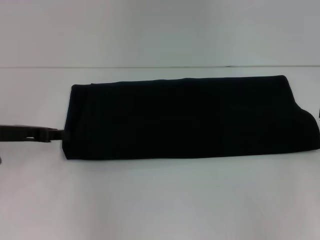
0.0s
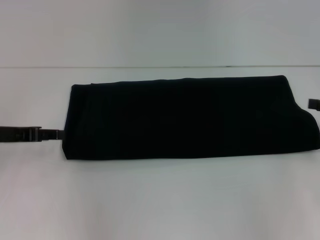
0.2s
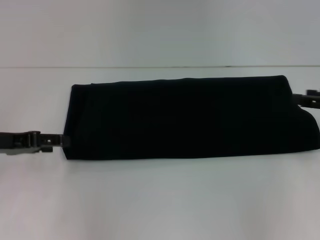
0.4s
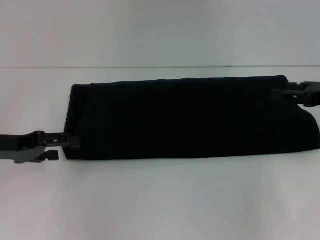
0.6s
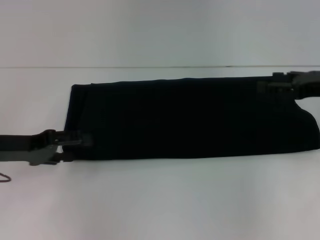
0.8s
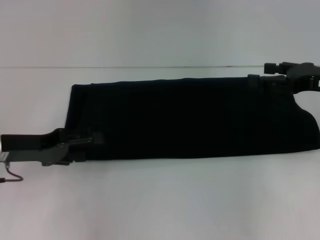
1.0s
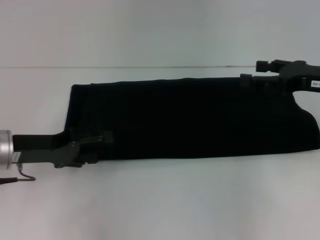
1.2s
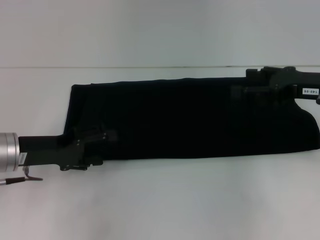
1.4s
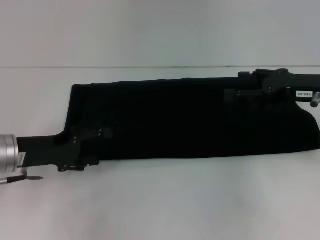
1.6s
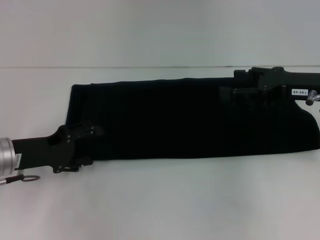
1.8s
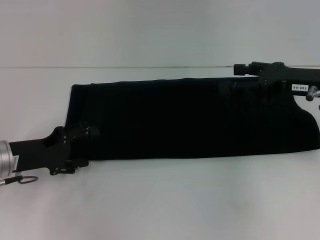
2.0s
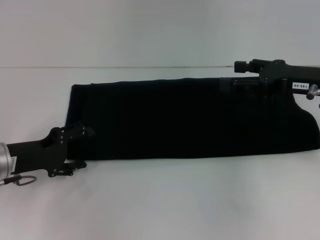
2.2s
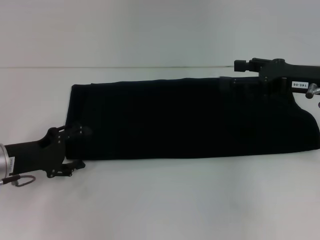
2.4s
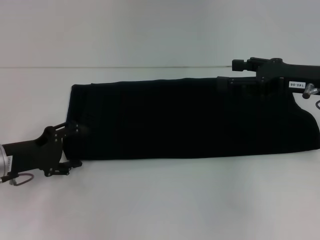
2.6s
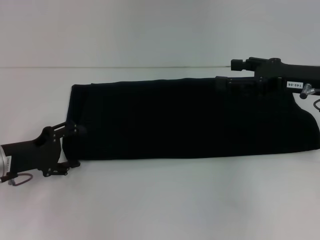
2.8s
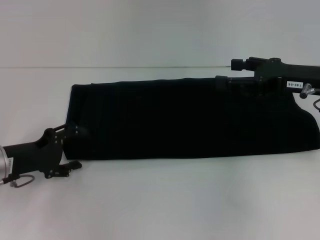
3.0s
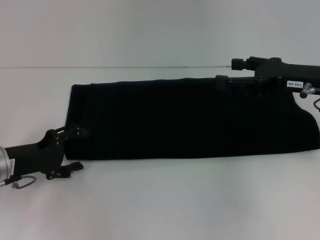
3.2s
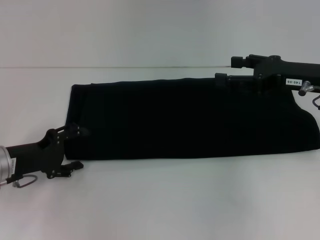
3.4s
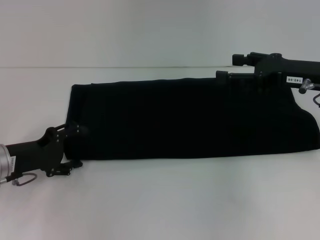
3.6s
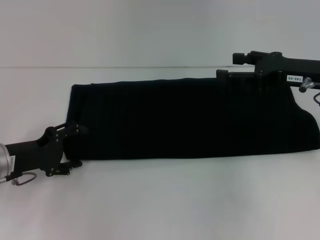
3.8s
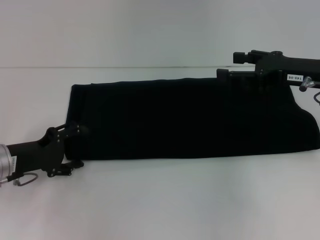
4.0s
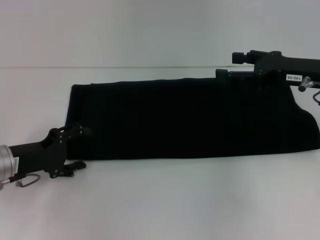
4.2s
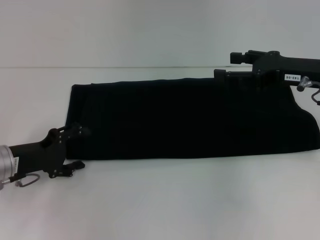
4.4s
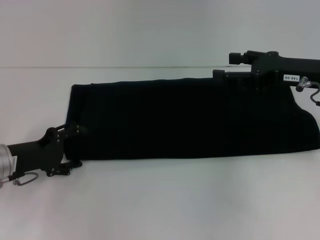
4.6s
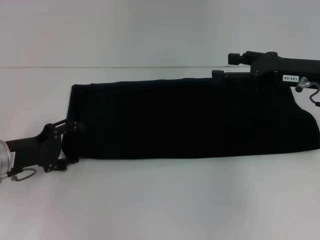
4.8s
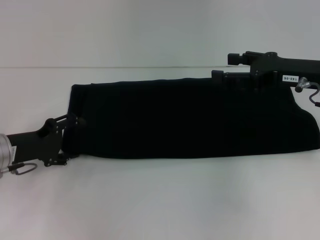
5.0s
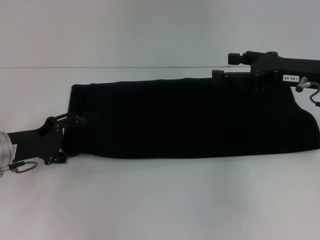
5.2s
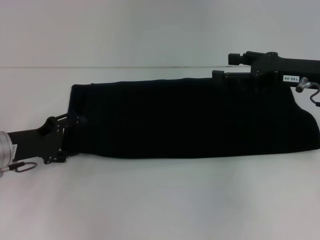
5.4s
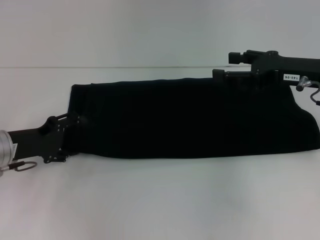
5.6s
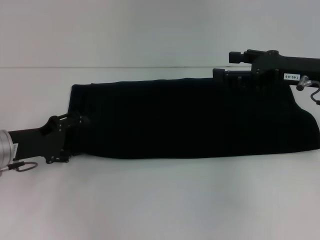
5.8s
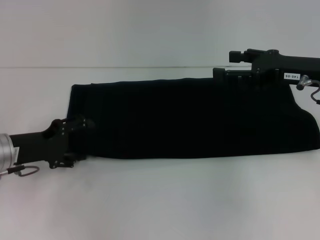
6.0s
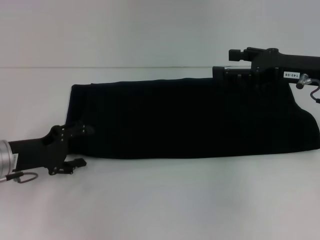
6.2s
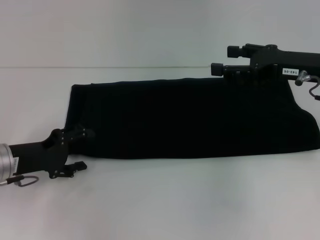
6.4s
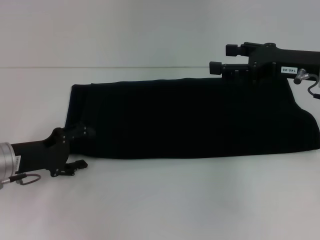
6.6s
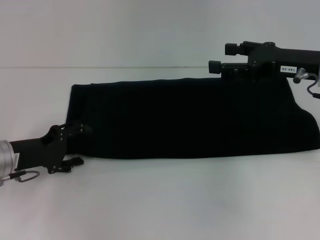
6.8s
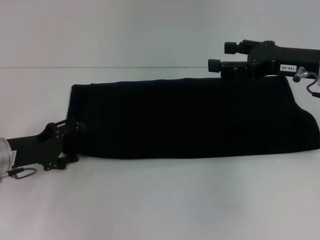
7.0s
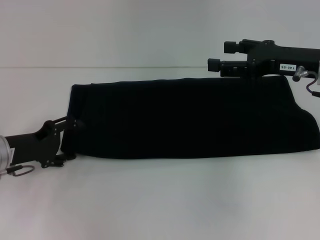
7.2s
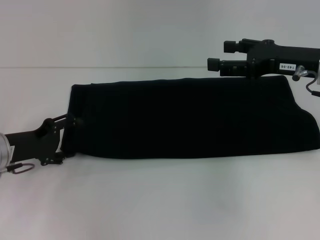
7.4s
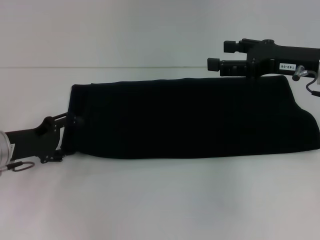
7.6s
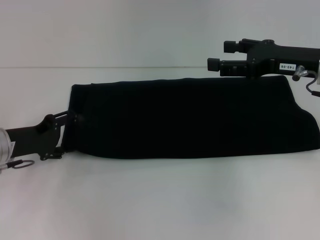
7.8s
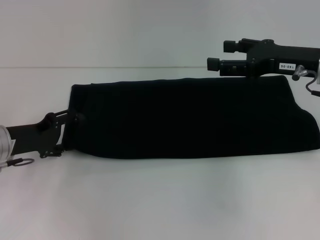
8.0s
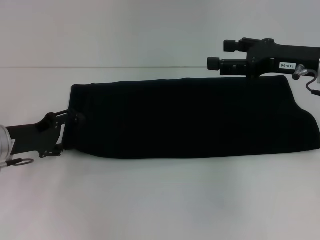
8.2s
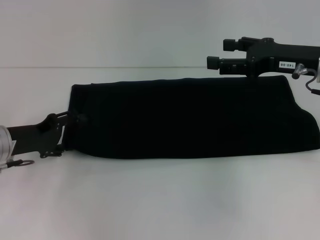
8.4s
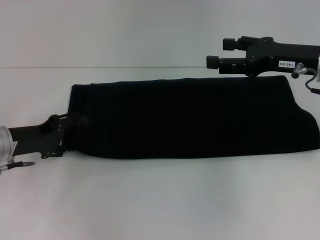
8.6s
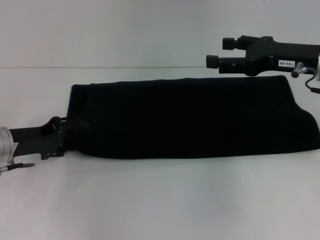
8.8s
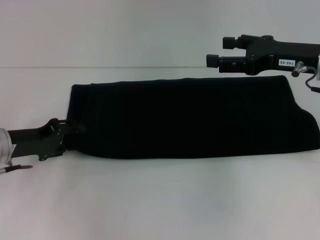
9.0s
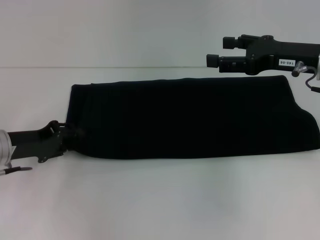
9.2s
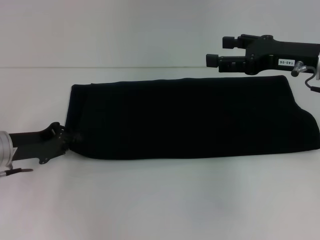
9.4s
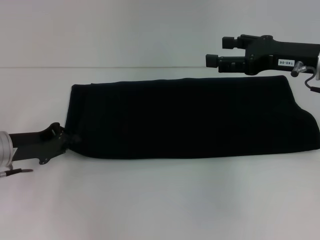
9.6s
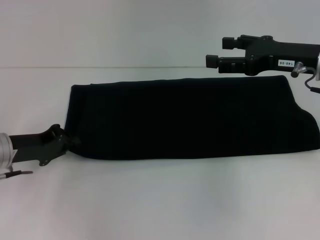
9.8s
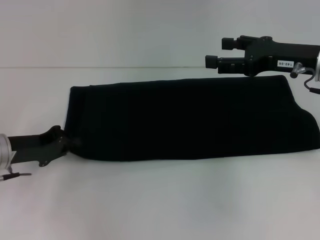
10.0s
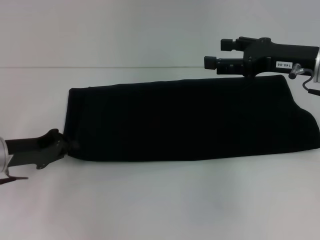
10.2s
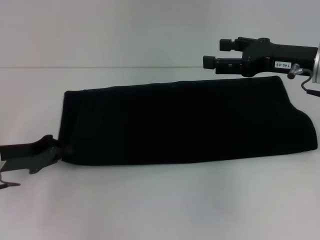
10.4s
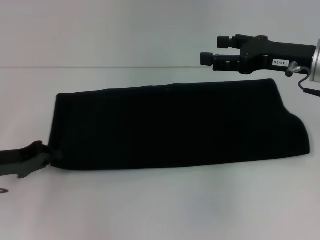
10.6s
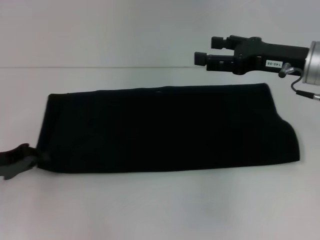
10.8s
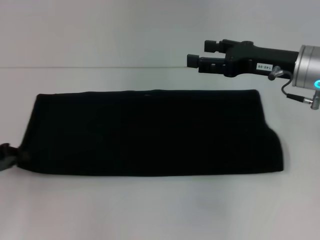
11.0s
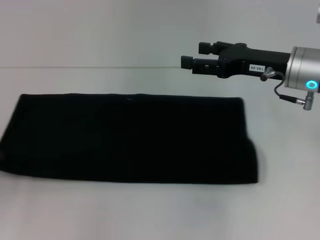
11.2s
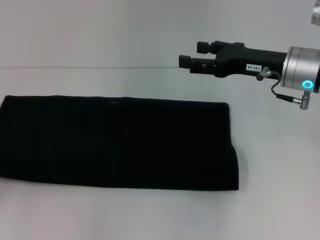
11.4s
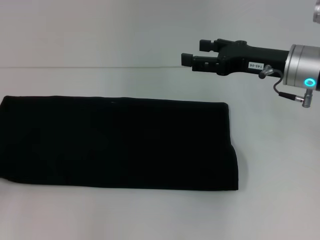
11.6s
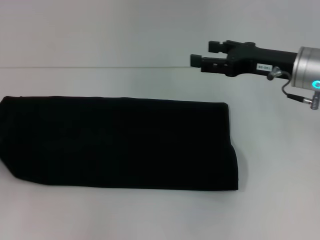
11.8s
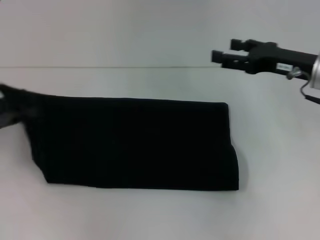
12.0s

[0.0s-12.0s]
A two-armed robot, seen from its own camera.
0.0s to 1.6s: The left gripper opens up. Meanwhile the right gripper moves to the left, some 10 cm, and opens up.
3.0s to 4.4s: Neither gripper changes place.
4.4s to 7.6s: The grippers move only a little.
7.6s to 9.0s: There are only small adjustments of the grippers.
9.0s to 10.4s: The left gripper closes.
10.4s to 12.0s: The left gripper goes some 10 cm upward.

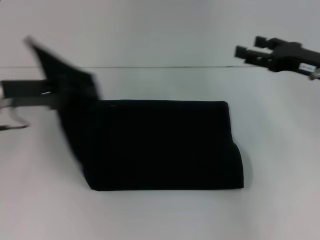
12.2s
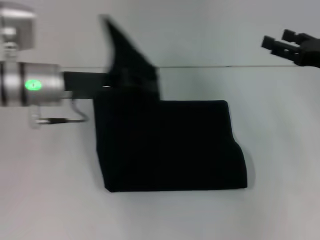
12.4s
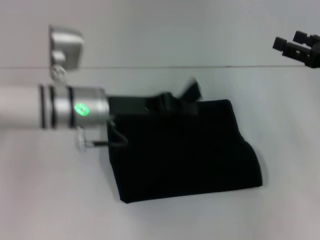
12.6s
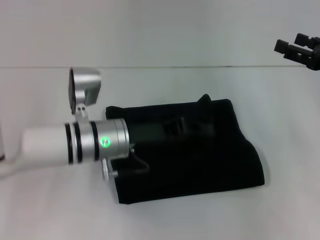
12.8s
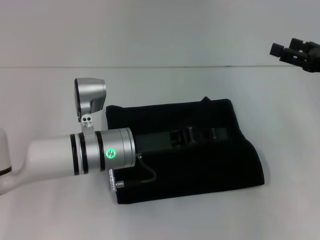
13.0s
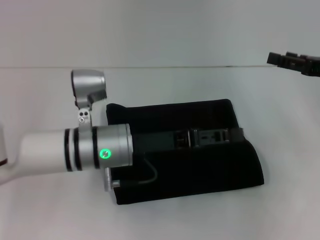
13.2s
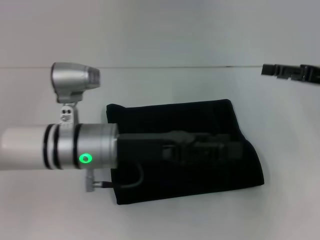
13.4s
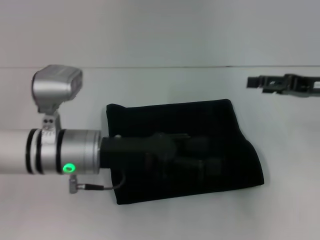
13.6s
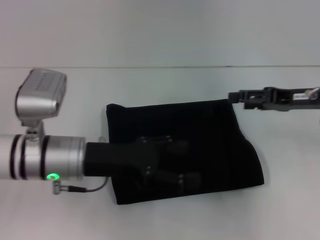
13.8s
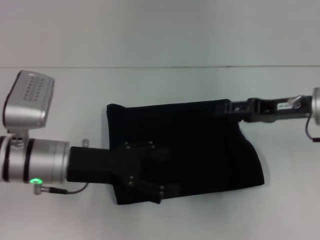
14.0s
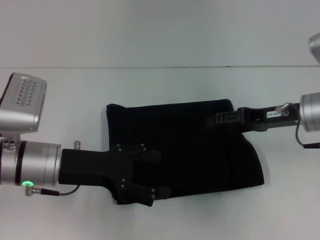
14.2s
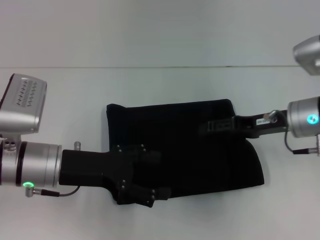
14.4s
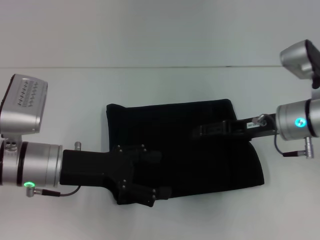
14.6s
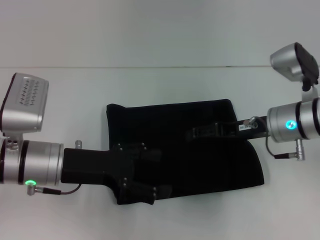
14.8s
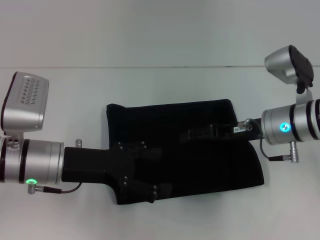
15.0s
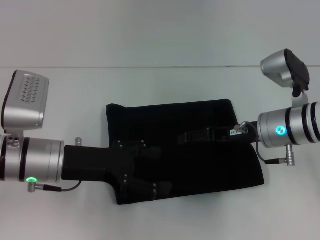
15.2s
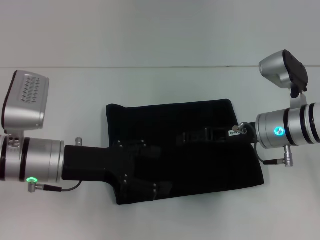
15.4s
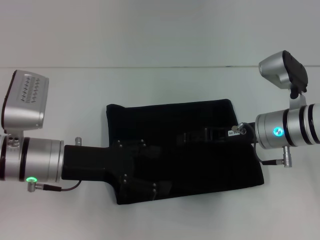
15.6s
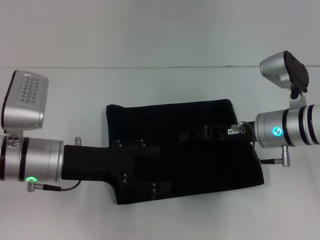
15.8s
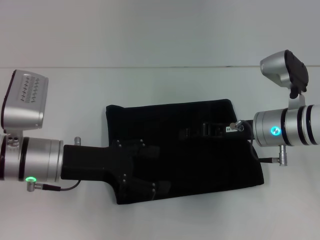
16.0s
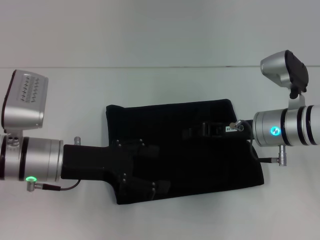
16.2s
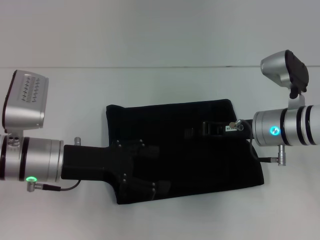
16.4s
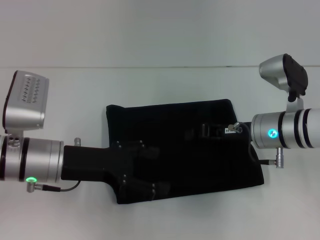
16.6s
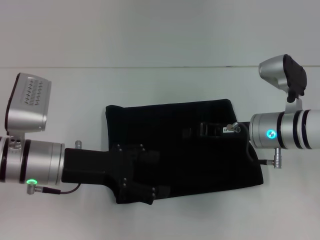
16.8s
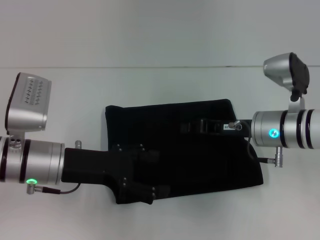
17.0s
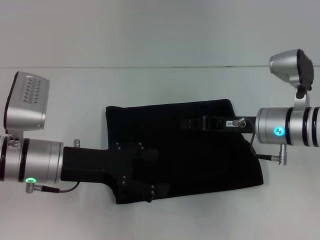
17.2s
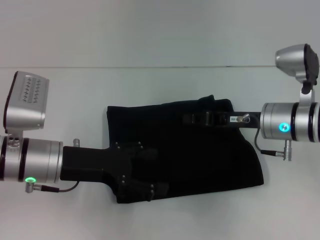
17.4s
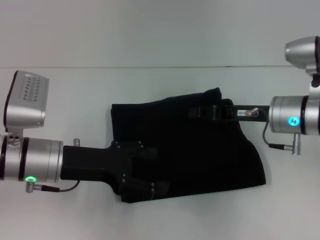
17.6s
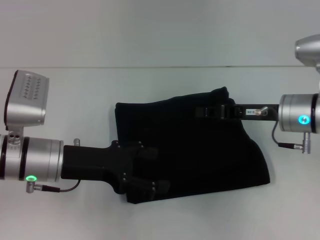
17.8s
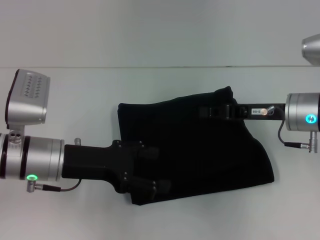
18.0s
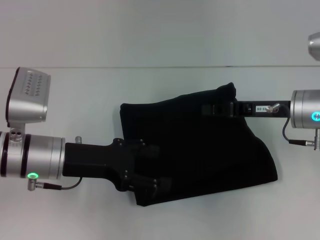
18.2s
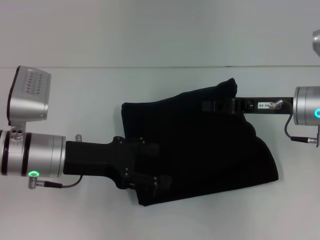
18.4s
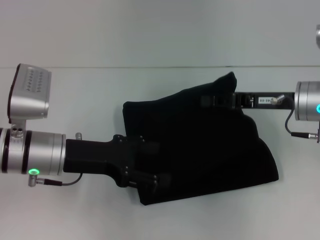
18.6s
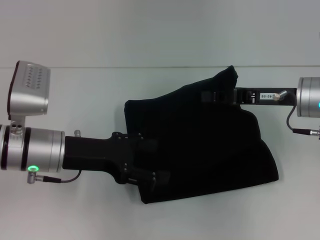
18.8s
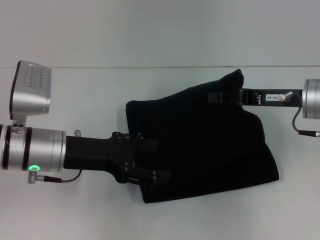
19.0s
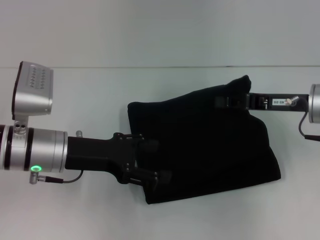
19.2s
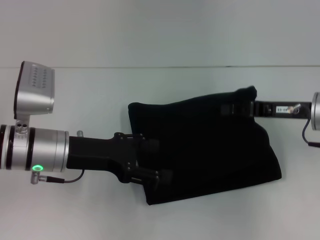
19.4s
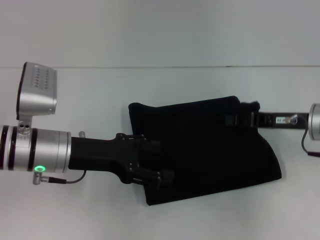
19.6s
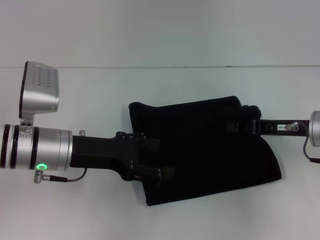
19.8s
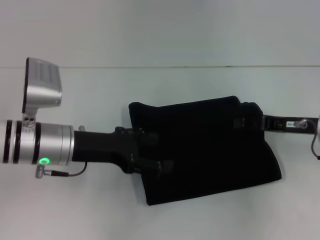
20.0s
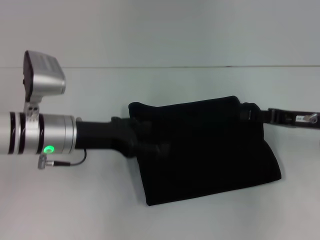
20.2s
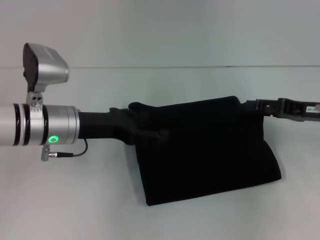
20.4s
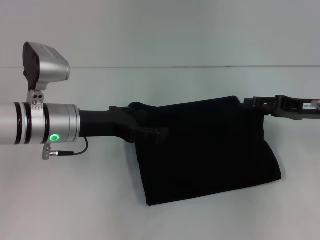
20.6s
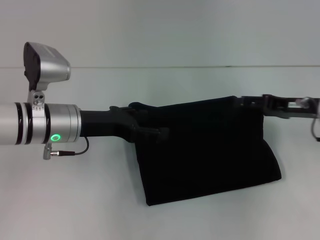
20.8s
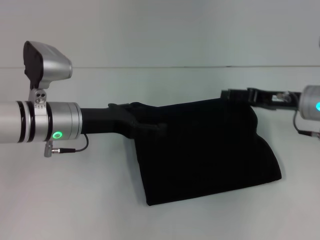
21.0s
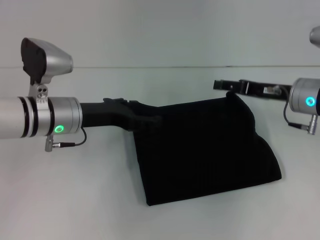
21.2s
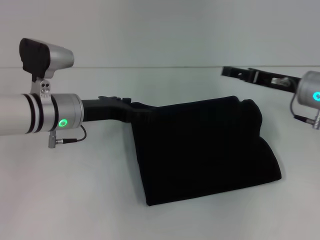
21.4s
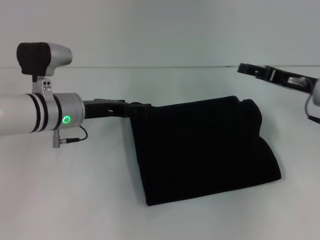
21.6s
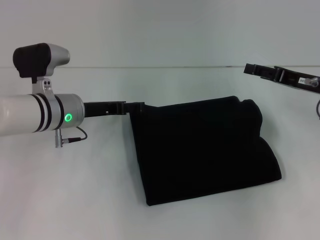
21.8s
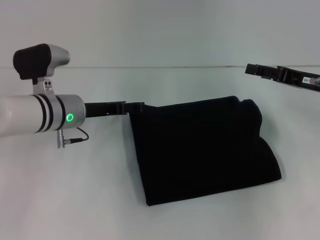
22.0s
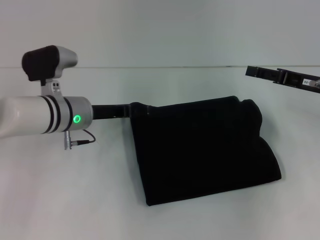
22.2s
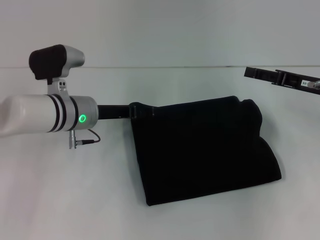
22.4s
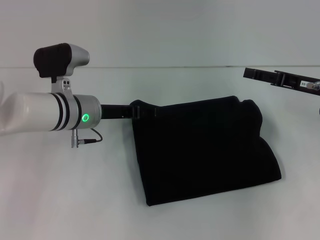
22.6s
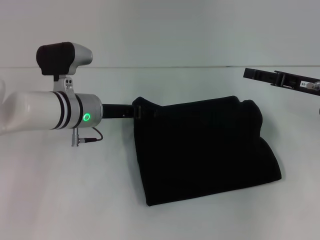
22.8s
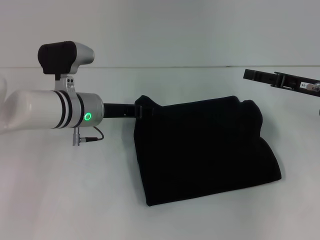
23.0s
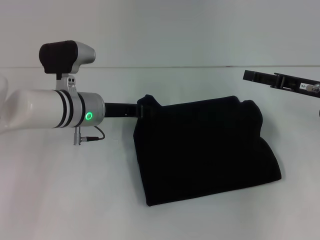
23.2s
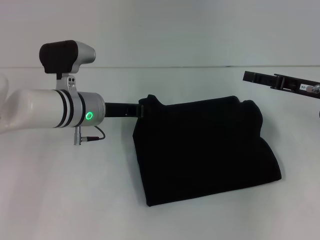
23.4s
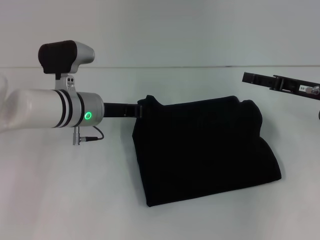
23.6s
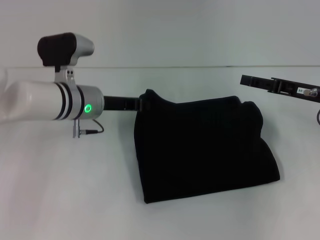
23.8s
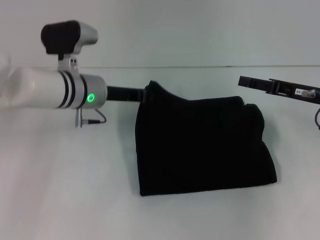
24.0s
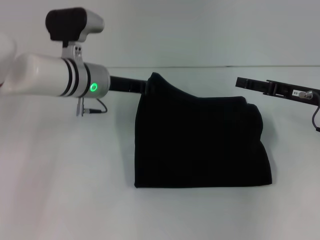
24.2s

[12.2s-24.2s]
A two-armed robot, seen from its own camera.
12.2s to 13.8s: The left gripper travels to the right, backward and downward by about 15 cm, and opens its fingers.
13.8s to 15.2s: The right gripper goes roughly 10 cm to the left.
15.2s to 16.6s: The right gripper closes its fingers.
16.6s to 18.2s: The right gripper moves roughly 5 cm.
18.2s to 19.8s: The grippers move only a little.
19.8s to 21.2s: The left gripper shifts about 5 cm forward. Meanwhile the right gripper moves approximately 5 cm, and opens its fingers.
21.2s to 22.6s: The right gripper heads to the right, covering roughly 5 cm.
22.6s to 24.2s: The left gripper shifts by some 5 cm, and closes up.
